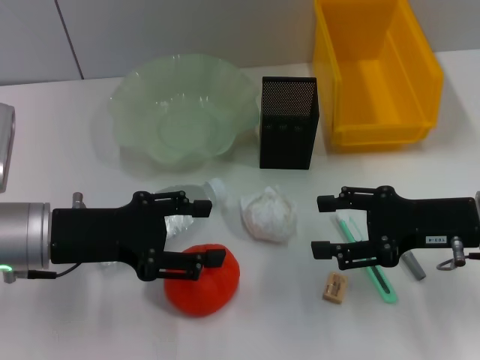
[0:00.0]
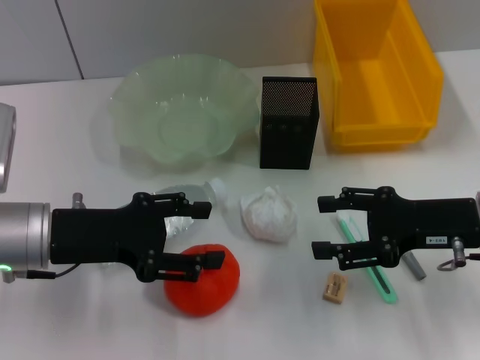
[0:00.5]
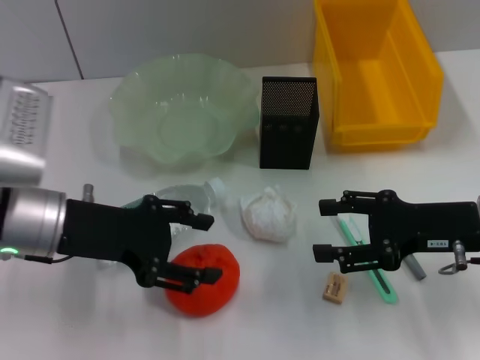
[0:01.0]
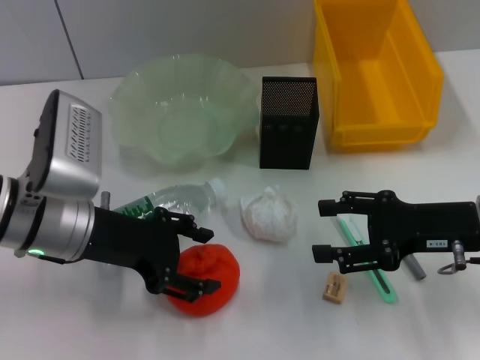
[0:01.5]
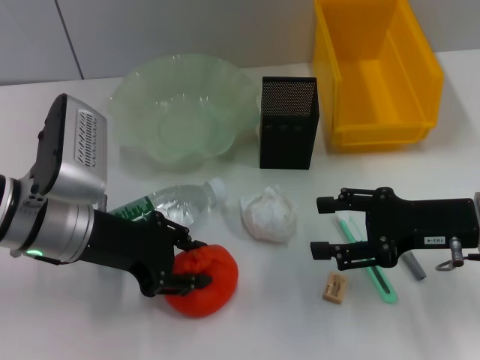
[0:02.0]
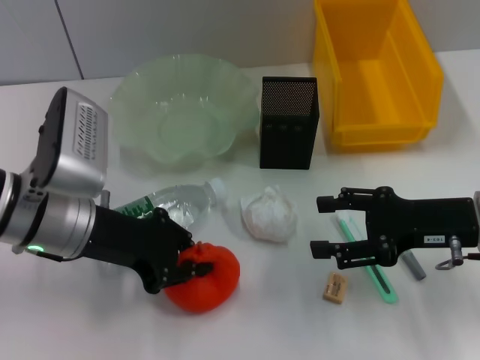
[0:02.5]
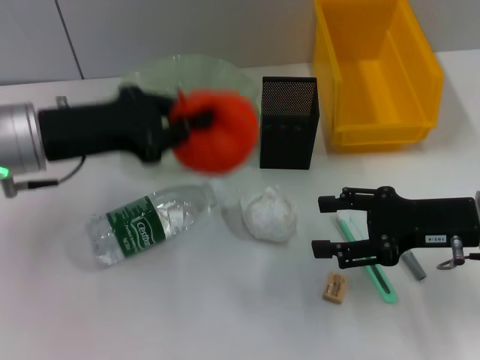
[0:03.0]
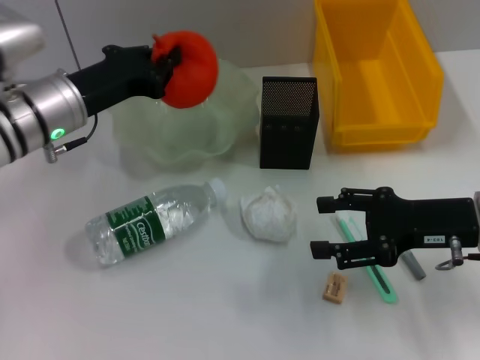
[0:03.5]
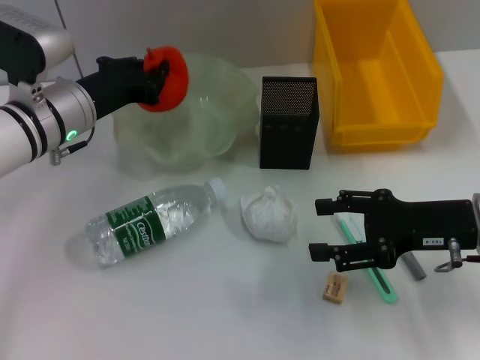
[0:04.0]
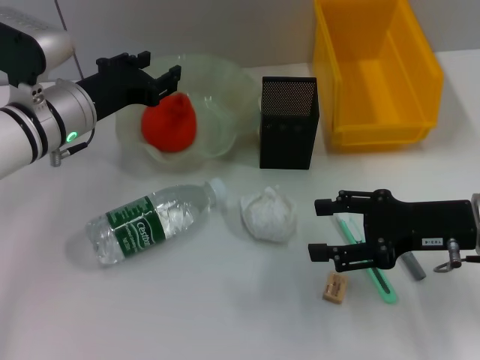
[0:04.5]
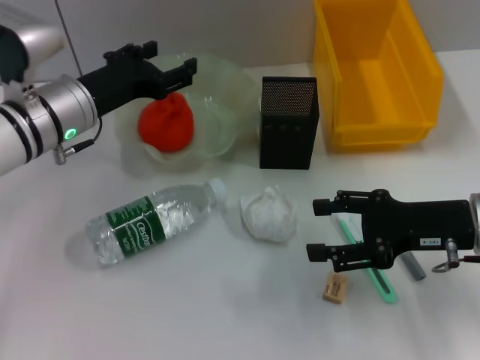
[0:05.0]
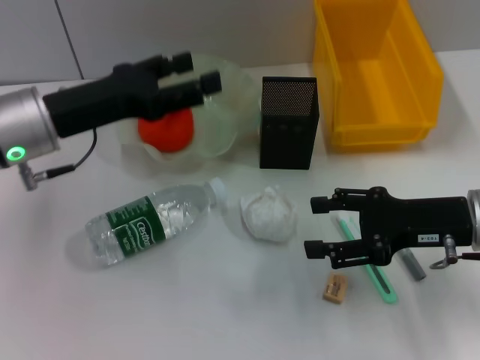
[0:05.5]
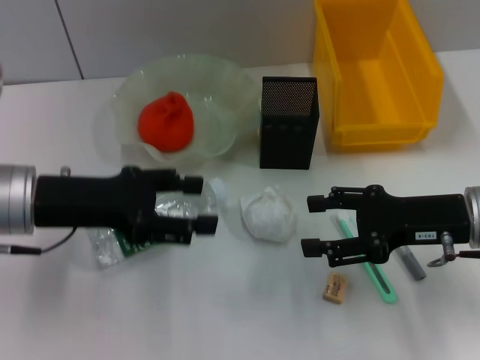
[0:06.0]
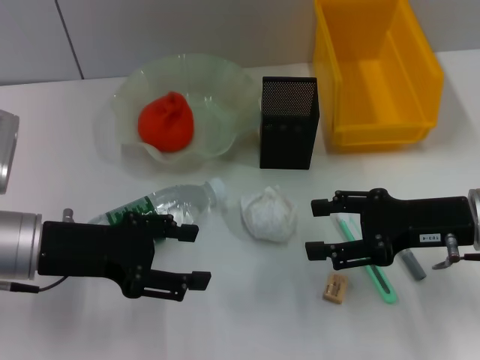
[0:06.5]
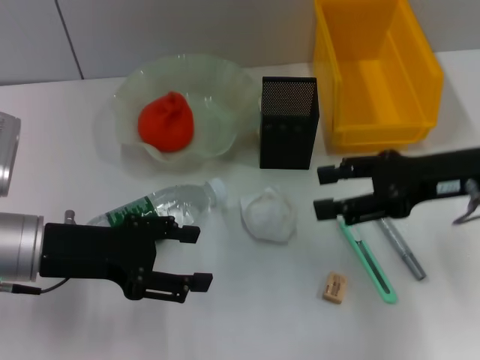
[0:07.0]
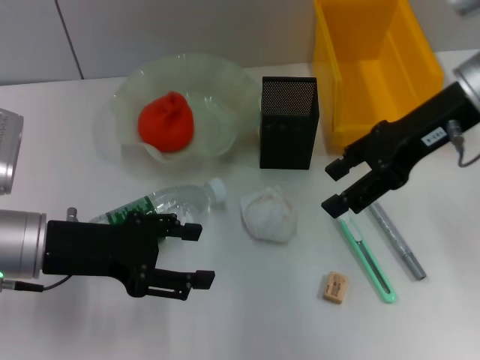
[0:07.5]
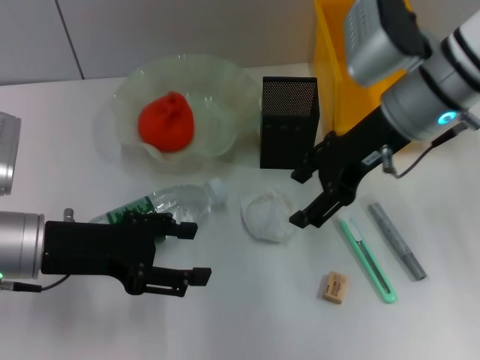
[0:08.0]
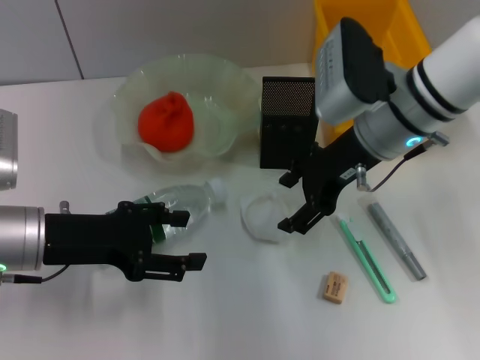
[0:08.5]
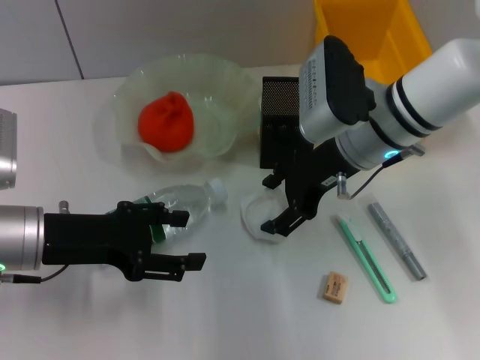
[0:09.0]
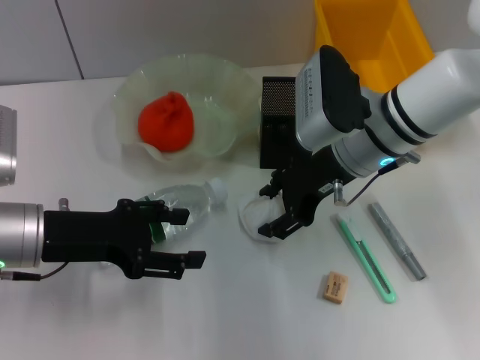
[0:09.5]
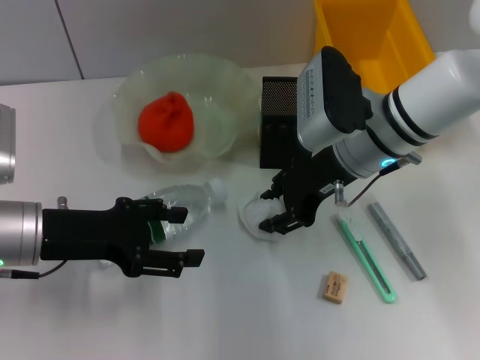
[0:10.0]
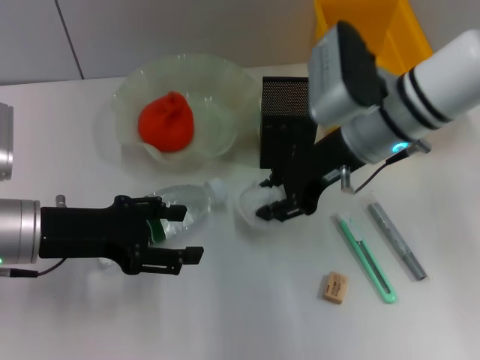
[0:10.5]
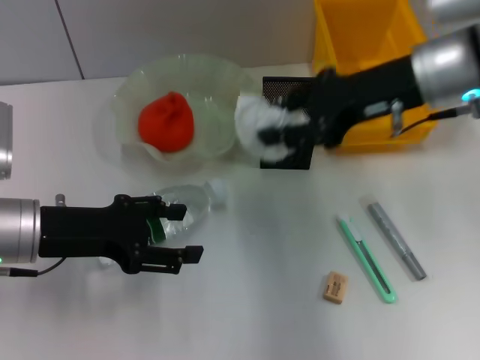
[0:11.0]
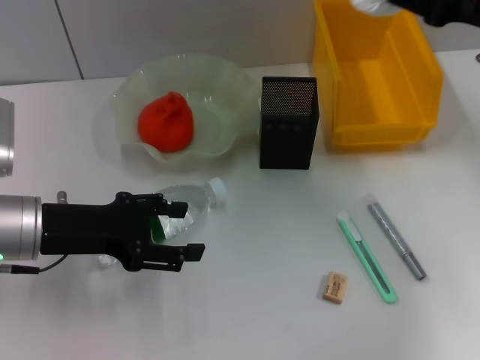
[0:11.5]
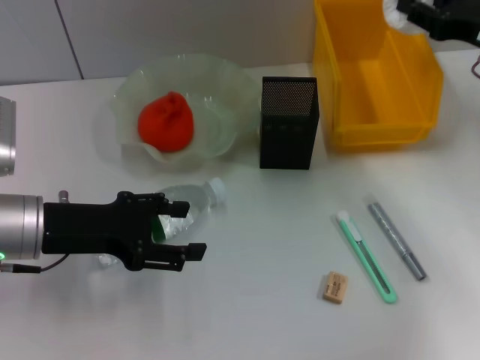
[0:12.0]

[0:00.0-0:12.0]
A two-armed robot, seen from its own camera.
Step, 0:00.0 to 0:02.0: Grab the orange with the left hand.
Step, 0:03.0 to 0:04.0: Place the orange into the fruit bowl with the left hand.
Step, 0:04.5 to 0:10.0: Grab the paper ball with the right hand.
0:02.0 to 0:04.0: The left gripper is displaced forward by roughly 10 cm, and closes up.
0:04.0 to 0:06.0: The left gripper shifts approximately 10 cm backward, and opens up.
0:06.0 to 0:08.0: The right gripper shifts roughly 15 cm upward, forward and to the left.
0:08.0 to 0:10.0: The right gripper travels downward by approximately 5 cm, and closes its fingers.
0:10.0 to 0:12.0: The right gripper travels to the right by some 20 cm.

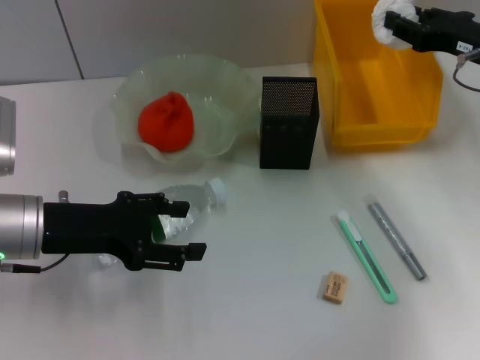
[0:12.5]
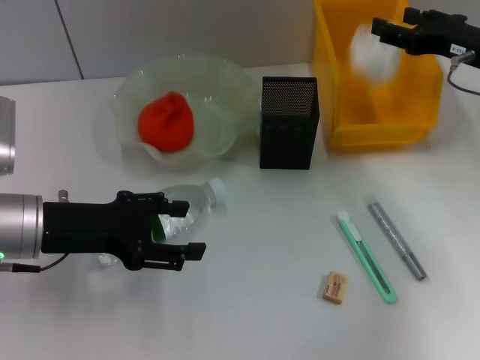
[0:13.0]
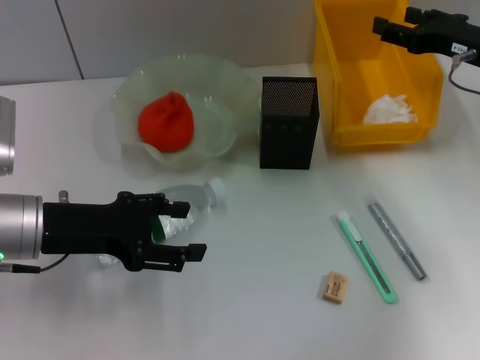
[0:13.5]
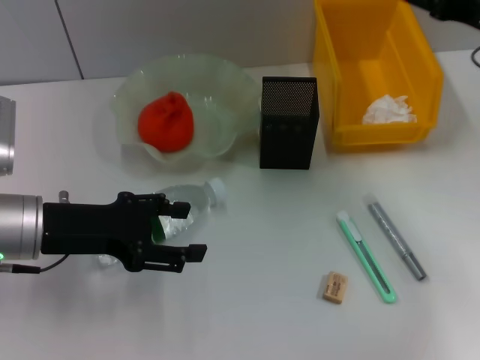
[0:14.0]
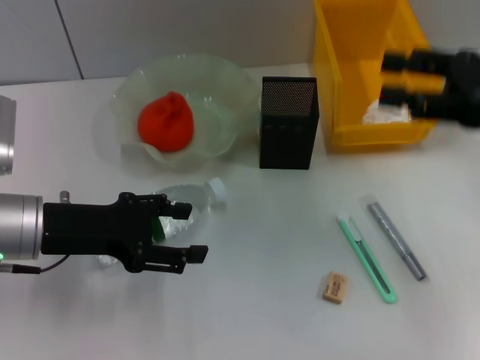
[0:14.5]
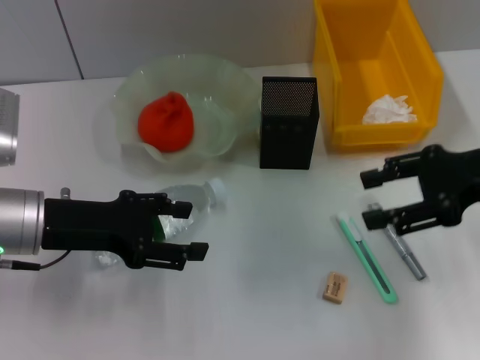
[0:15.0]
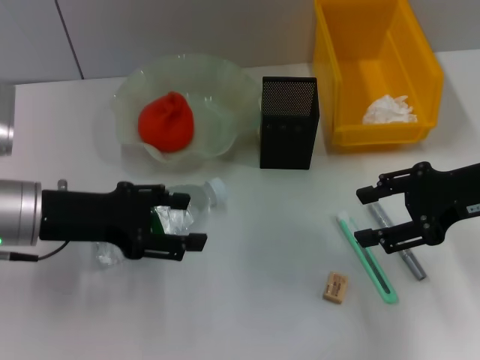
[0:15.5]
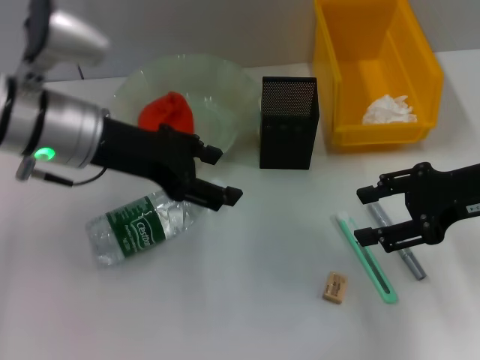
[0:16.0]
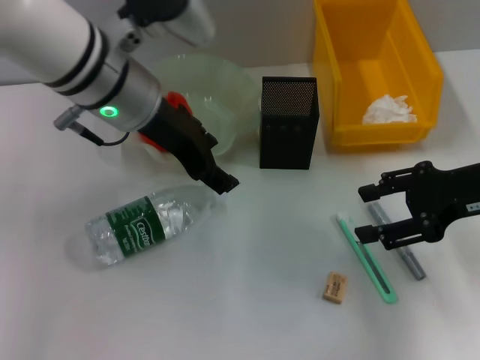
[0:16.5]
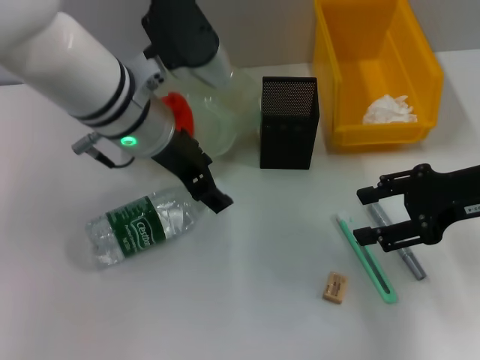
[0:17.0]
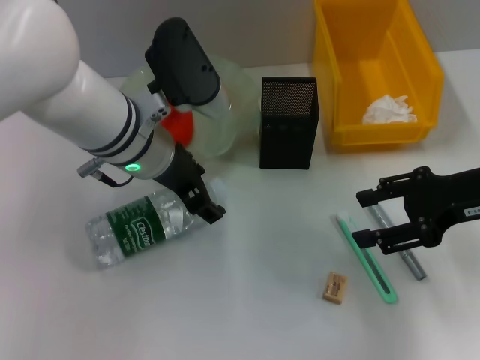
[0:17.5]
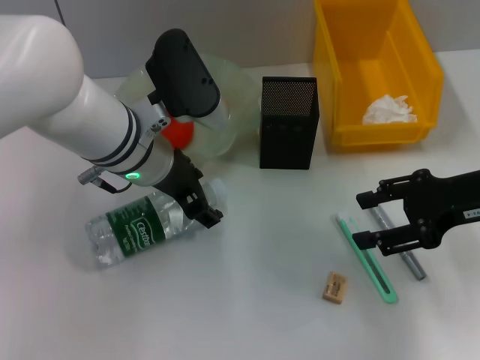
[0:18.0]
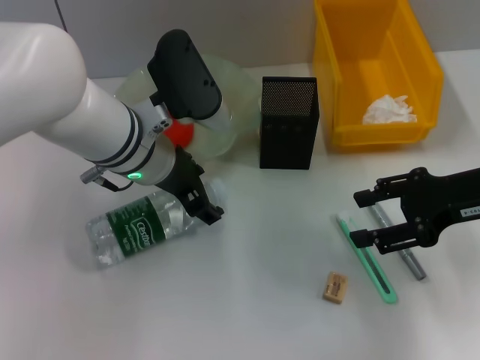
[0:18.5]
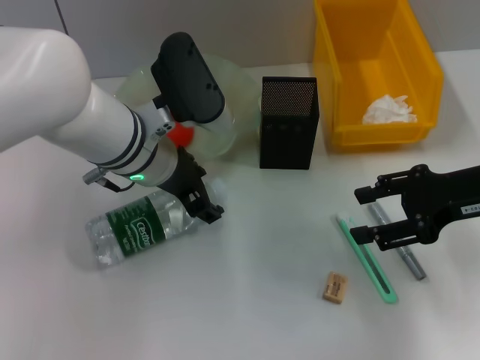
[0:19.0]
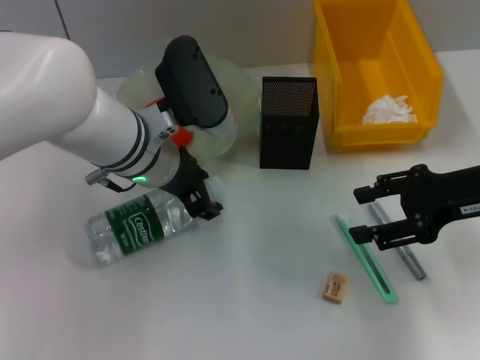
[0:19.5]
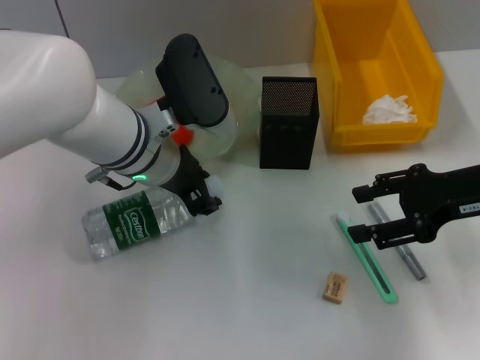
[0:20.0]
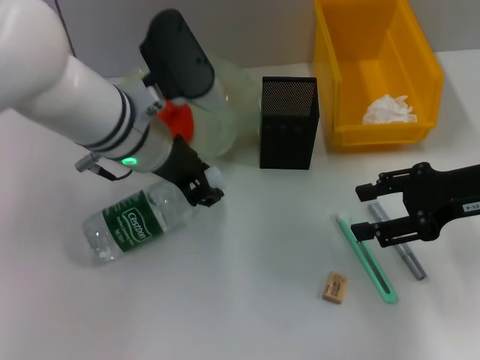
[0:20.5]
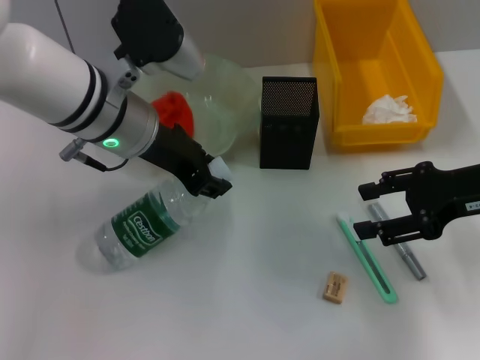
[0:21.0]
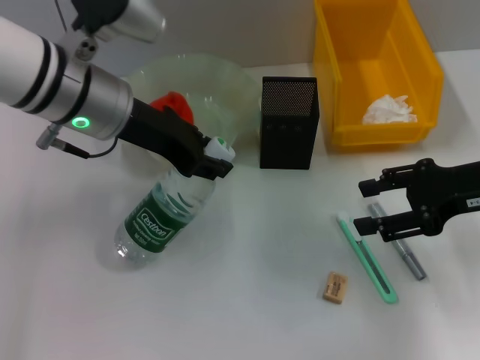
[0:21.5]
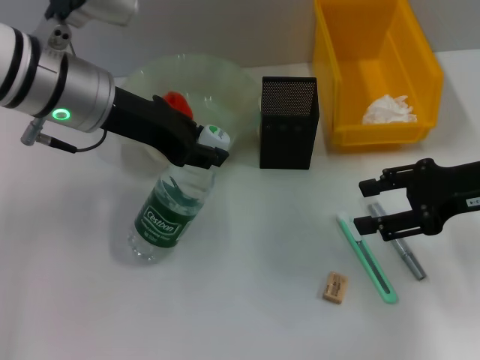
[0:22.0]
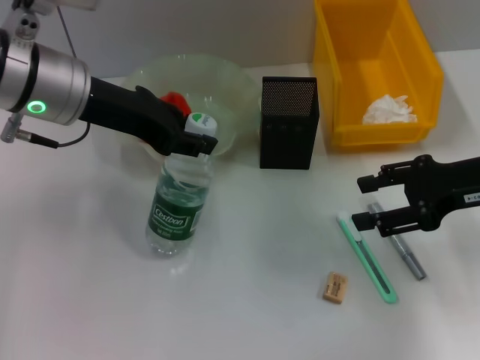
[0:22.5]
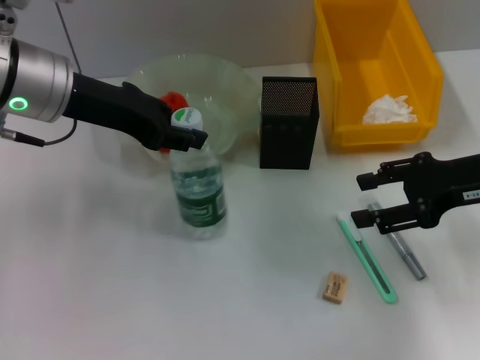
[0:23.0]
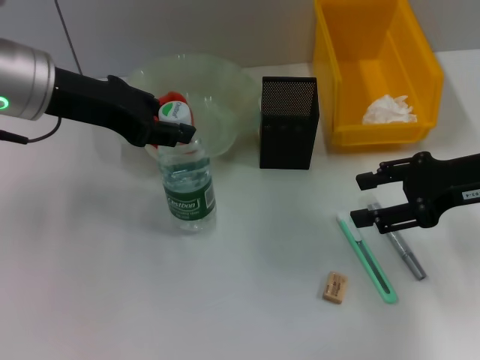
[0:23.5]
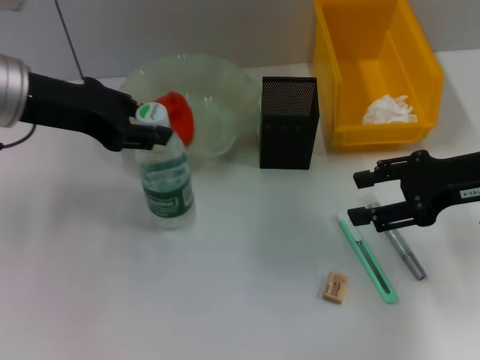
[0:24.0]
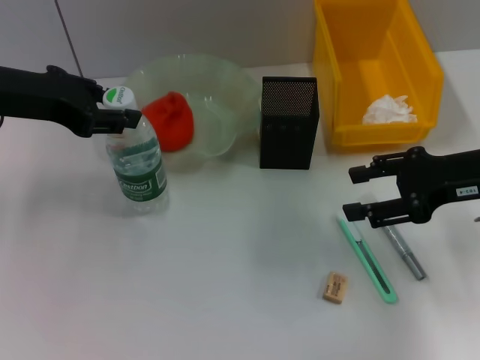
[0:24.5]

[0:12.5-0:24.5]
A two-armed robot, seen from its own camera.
Step, 0:14.0 to 0:20.0: Grab the water bottle with the left hand.
0:12.5 to 0:14.5: The right gripper heads backward, covering roughly 10 cm, and opens its fingers.
0:14.5 to 0:16.5: The left gripper goes some 20 cm to the right, upward and forward.
0:16.5 to 0:18.5: The left gripper moves downward, roughly 5 cm.
0:18.5 to 0:20.5: The left gripper closes its fingers.
0:20.5 to 0:22.5: The left gripper goes about 10 cm to the left and upward.
0:22.5 to 0:24.5: The left gripper is displaced to the left by some 5 cm.

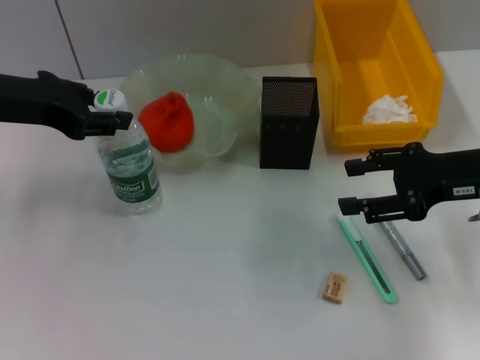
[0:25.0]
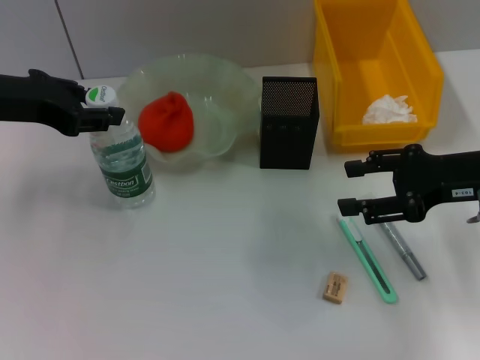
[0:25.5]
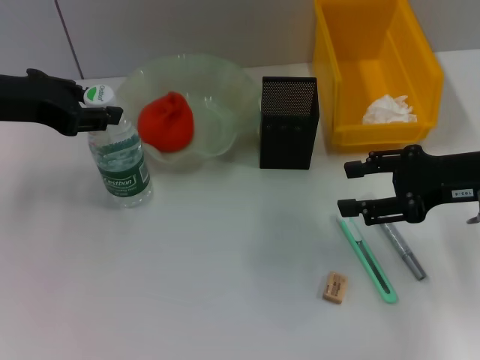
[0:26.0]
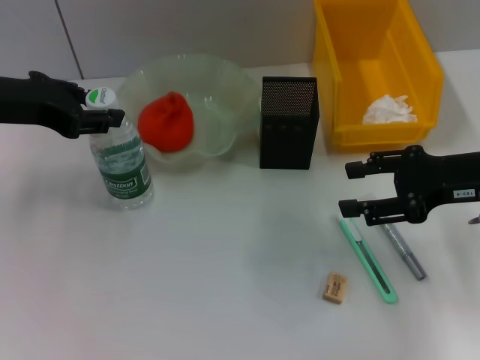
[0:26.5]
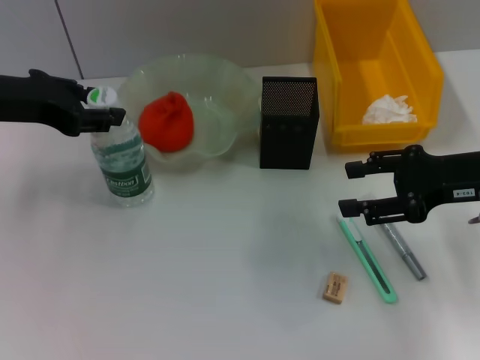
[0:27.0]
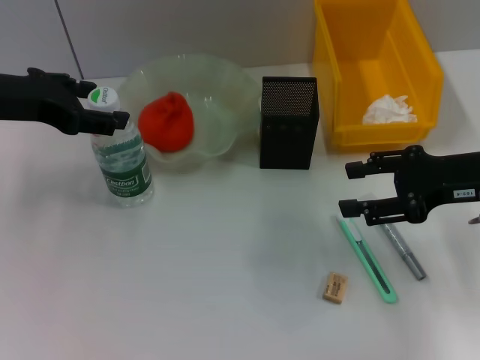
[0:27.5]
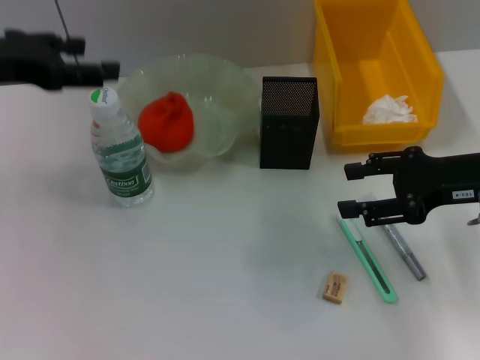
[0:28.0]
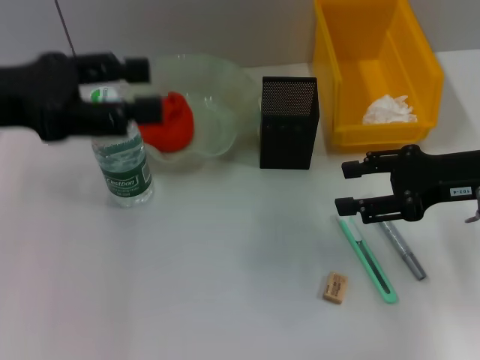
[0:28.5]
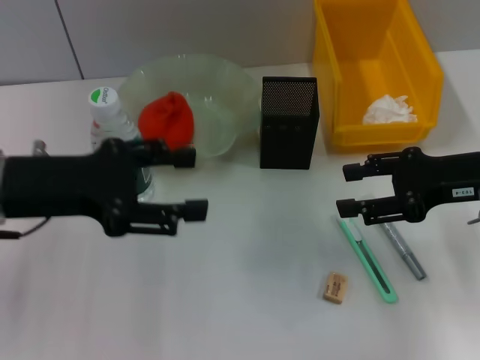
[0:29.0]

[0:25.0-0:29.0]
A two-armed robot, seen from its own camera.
Step, 0:25.0 to 0:28.0: Place the water bottle on the table with the left hand.
0:25.0 to 0:27.0: Neither gripper changes place.
0:27.0 to 0:29.0: The left gripper goes roughly 5 cm backward, and opens.
